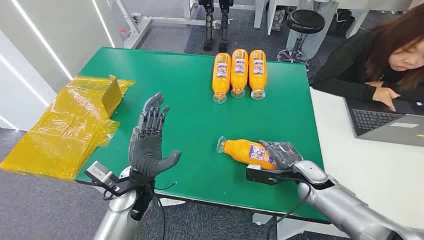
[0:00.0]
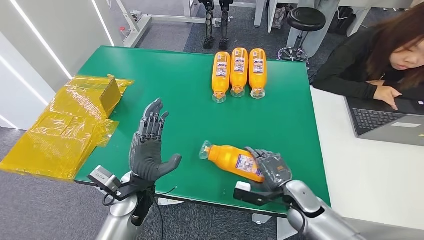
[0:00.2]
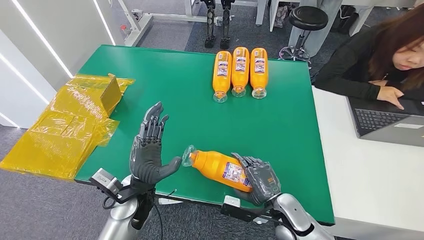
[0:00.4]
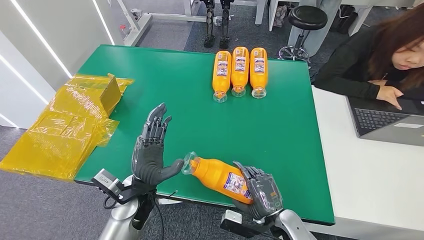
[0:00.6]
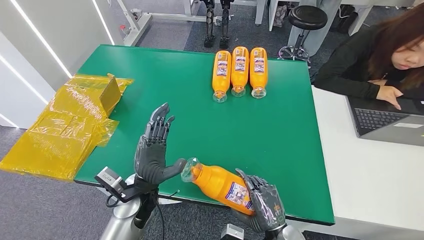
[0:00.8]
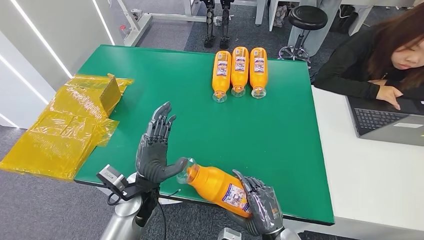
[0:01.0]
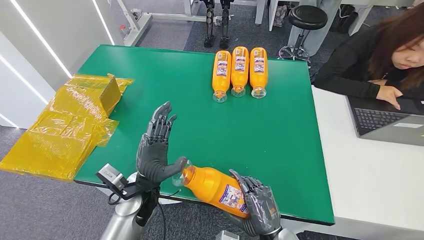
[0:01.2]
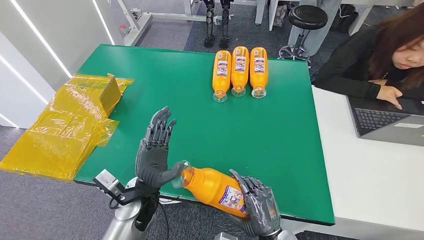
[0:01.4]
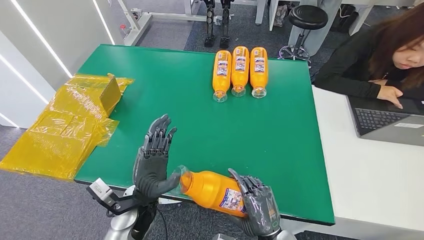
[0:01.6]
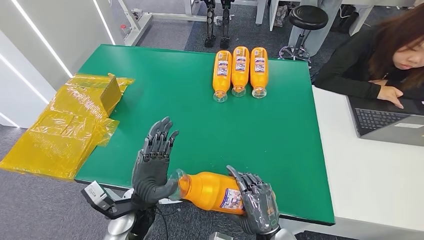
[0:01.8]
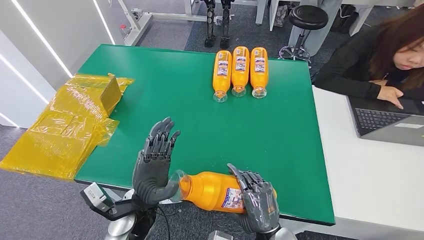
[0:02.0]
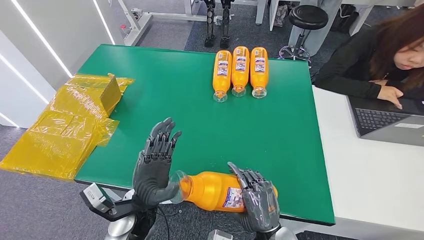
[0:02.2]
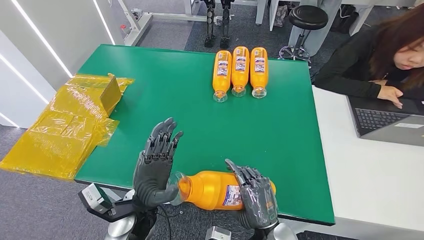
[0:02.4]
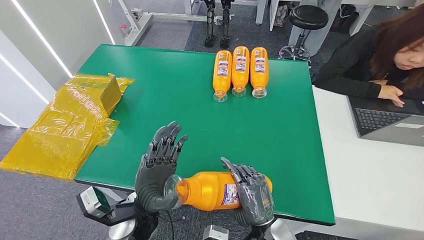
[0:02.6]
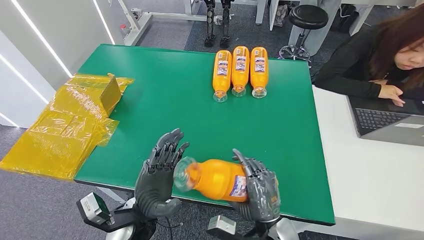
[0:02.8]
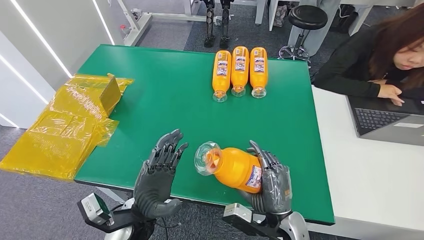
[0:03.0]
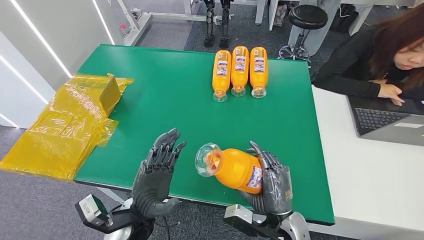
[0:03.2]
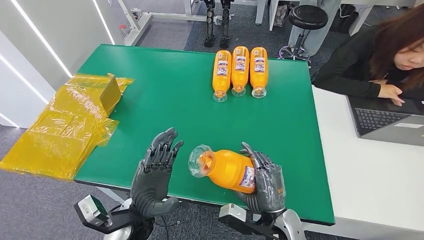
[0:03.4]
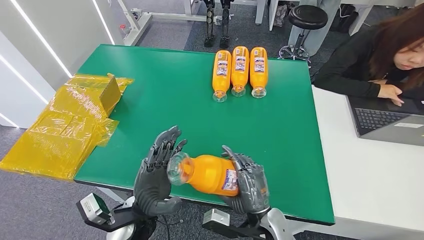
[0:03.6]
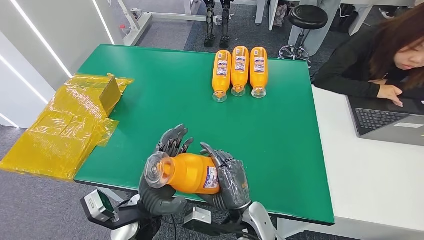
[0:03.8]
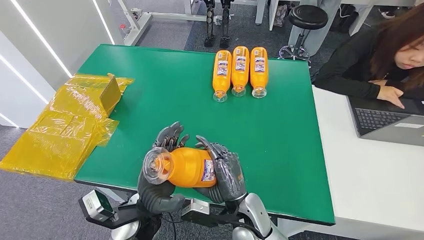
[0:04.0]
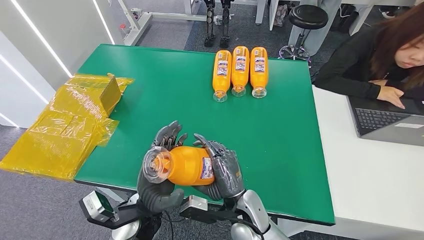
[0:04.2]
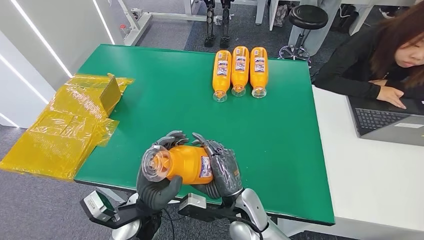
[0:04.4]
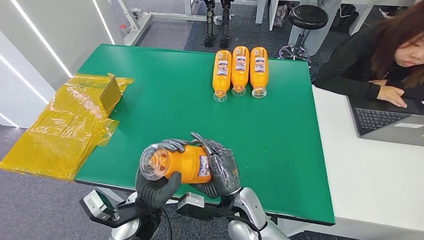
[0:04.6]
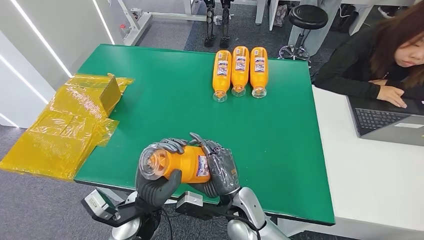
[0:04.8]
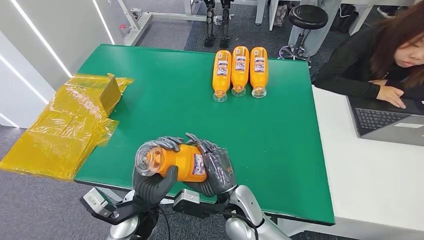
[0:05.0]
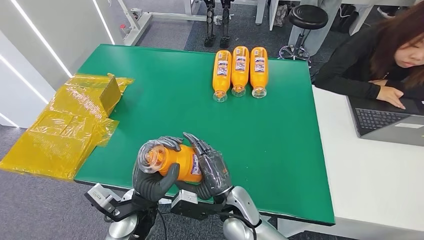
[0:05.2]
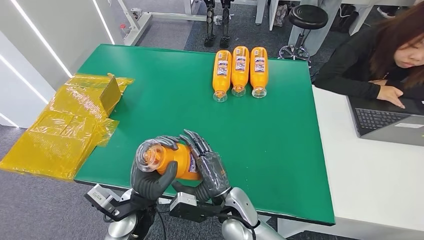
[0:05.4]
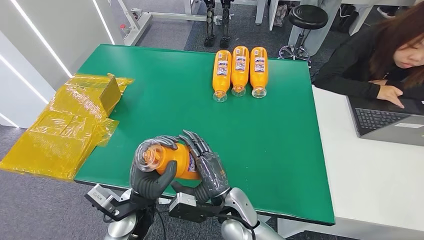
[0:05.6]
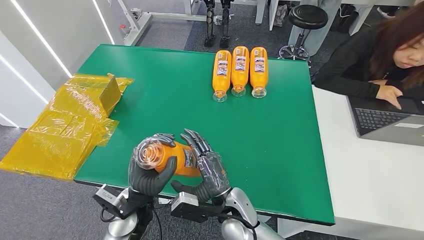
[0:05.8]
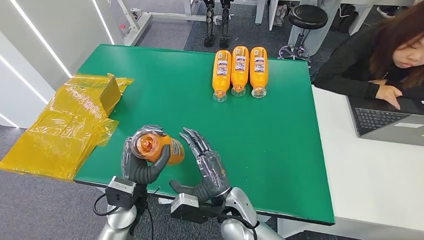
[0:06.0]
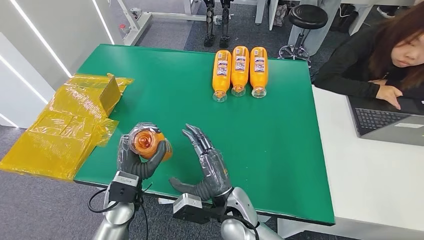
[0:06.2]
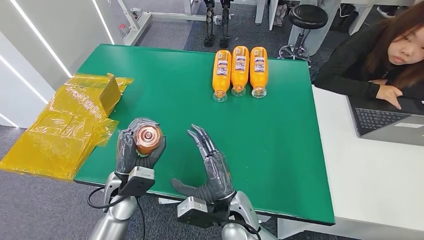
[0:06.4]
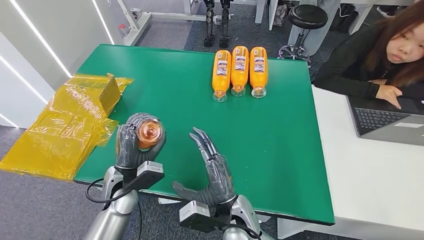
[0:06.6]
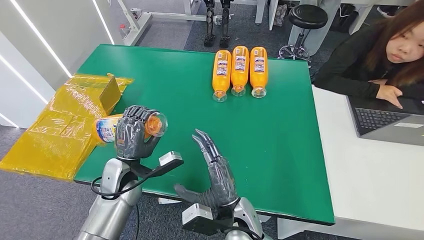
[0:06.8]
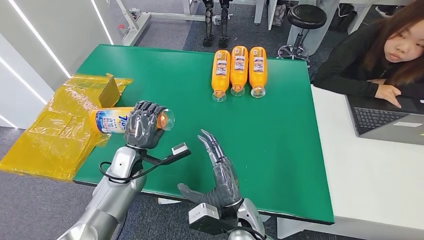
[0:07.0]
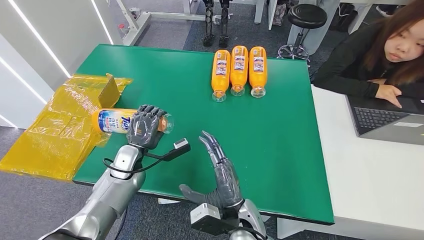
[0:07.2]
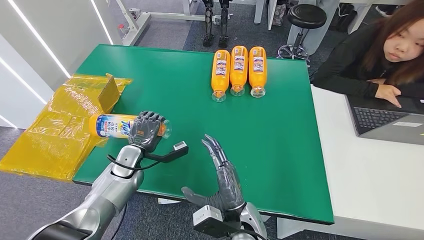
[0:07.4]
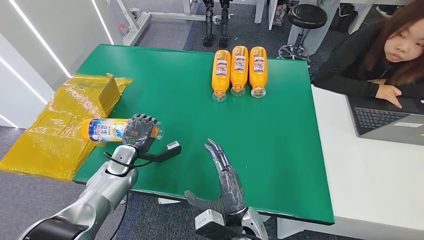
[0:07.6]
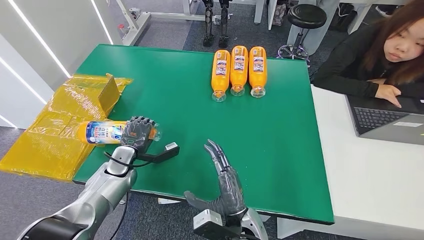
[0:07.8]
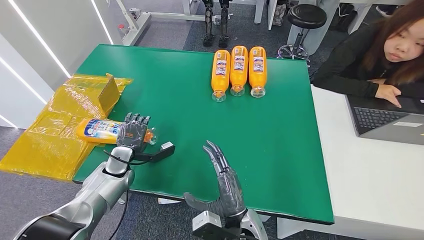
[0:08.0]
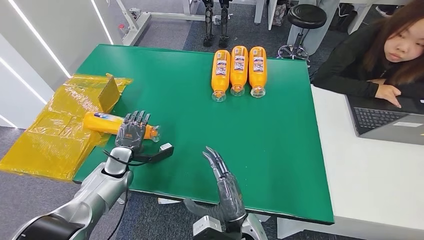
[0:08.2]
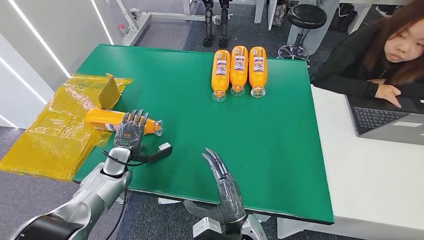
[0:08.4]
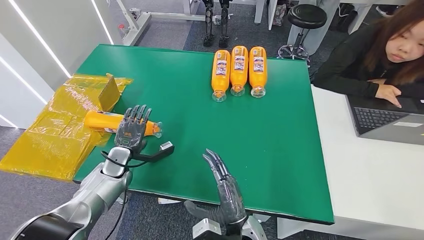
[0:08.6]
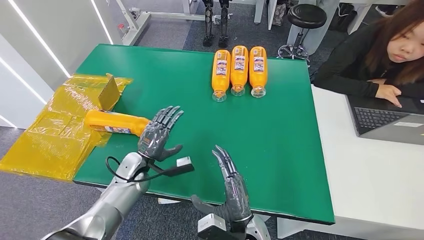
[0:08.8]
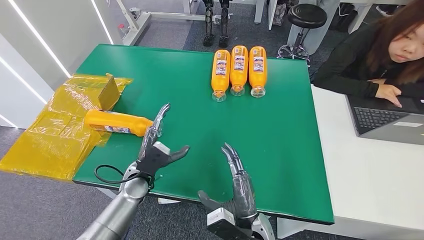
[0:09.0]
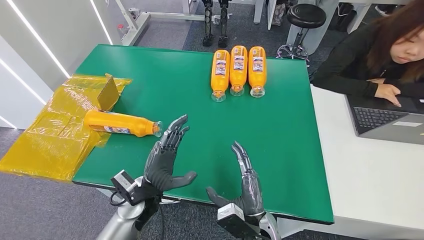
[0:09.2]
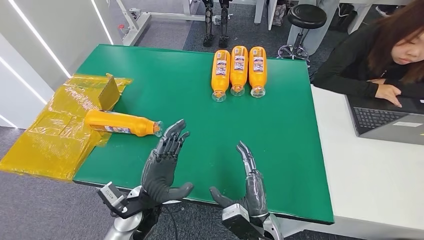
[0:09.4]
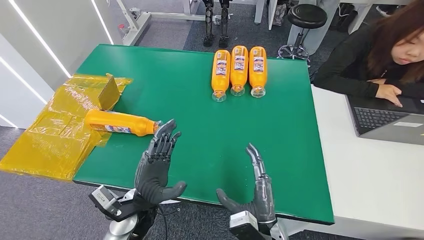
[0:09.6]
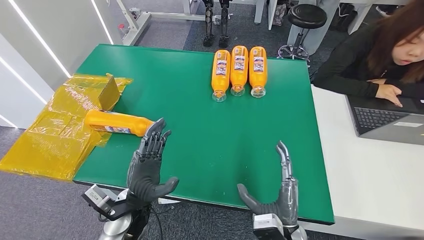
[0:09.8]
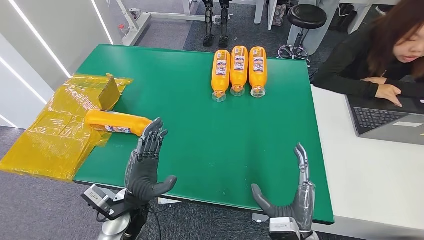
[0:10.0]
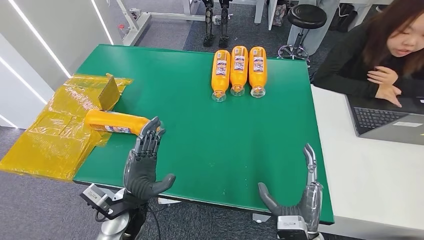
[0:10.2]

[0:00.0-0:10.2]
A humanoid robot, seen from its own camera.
Step, 0:00.0 to 0:04.2: Pick up the bottle from the table.
Step, 0:04.4 to 0:10.2: Turn the bottle to the front side.
0:01.4 to 0:03.0: The left hand moves backward, some 5 cm, while the right hand ends up roughly 5 cm from where it was.
0:03.0 to 0:04.4: The right hand goes about 10 cm to the left.
0:05.8 to 0:07.2: The left hand goes about 15 cm forward and to the left.
0:08.8 to 0:10.2: The right hand heads to the right, covering some 10 cm. The left hand goes some 15 cm backward and to the right.
